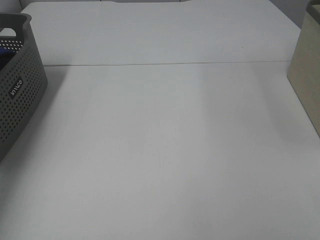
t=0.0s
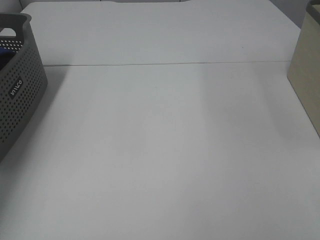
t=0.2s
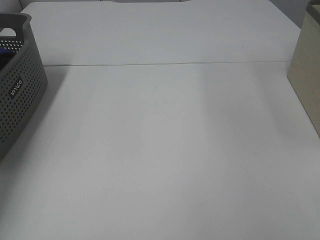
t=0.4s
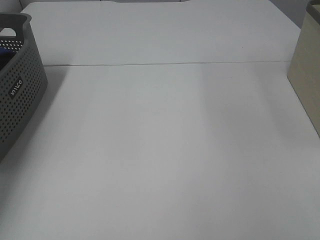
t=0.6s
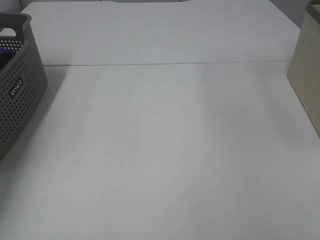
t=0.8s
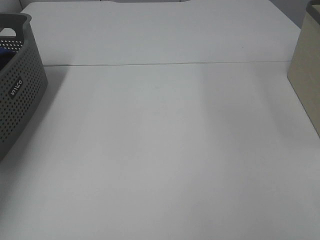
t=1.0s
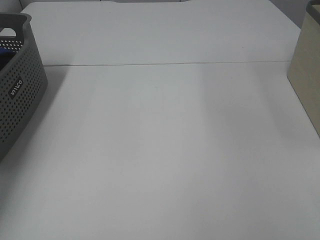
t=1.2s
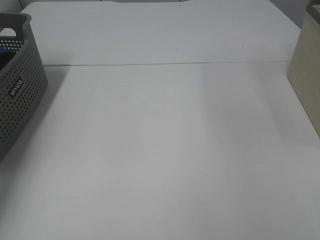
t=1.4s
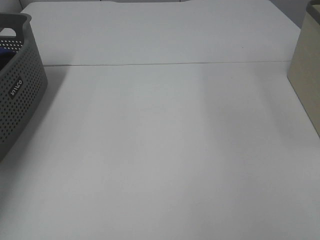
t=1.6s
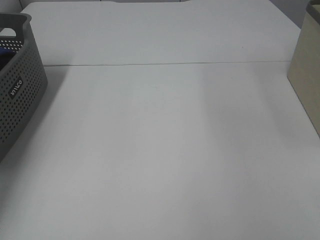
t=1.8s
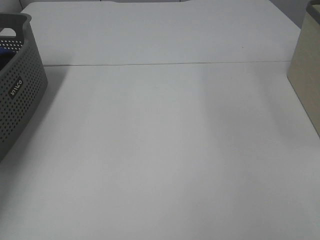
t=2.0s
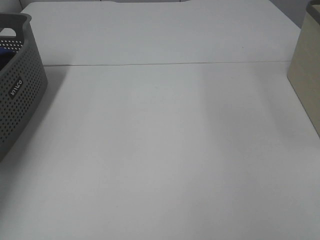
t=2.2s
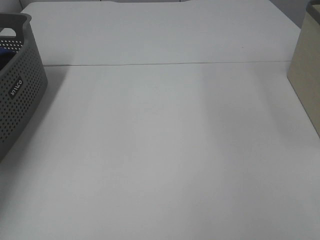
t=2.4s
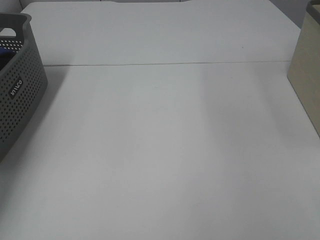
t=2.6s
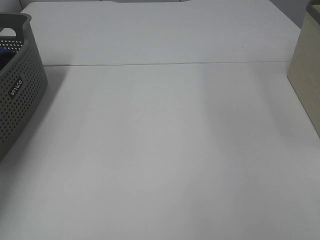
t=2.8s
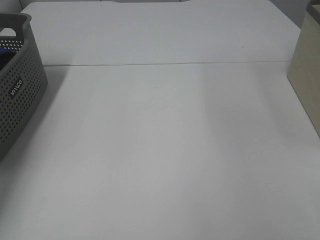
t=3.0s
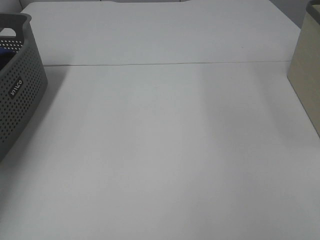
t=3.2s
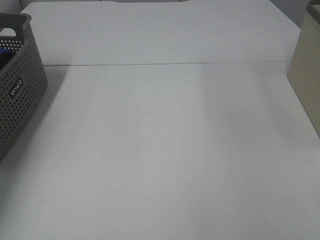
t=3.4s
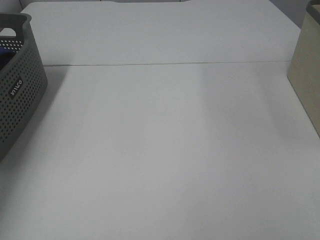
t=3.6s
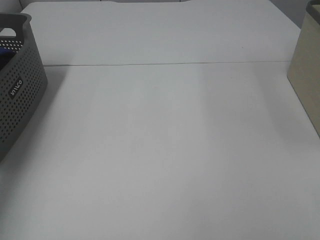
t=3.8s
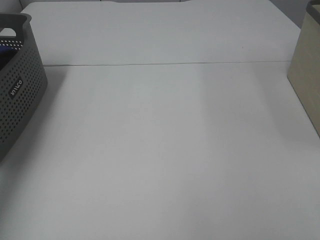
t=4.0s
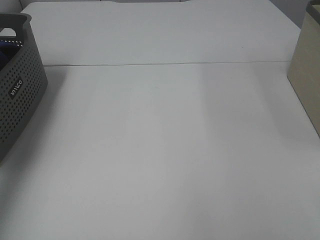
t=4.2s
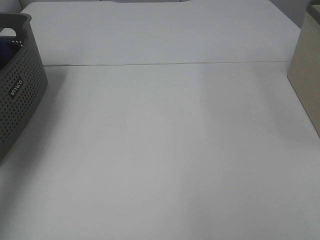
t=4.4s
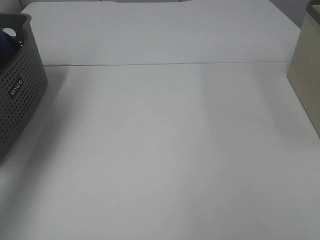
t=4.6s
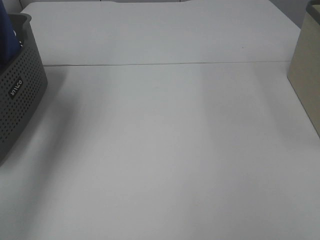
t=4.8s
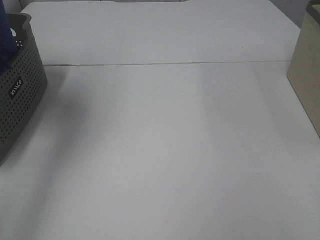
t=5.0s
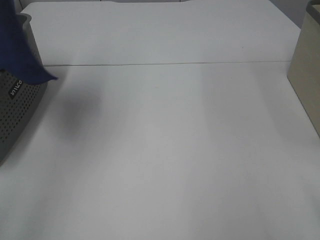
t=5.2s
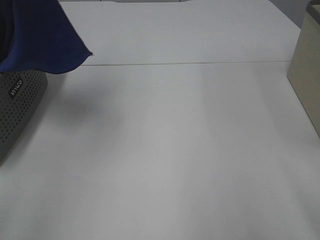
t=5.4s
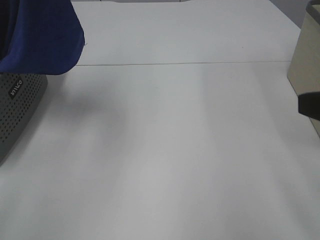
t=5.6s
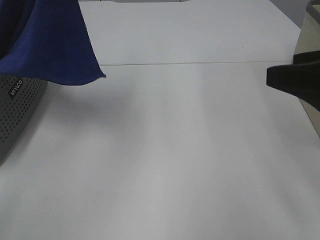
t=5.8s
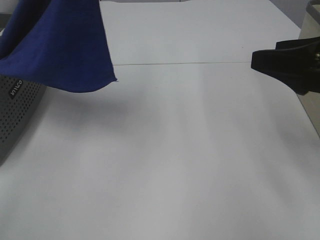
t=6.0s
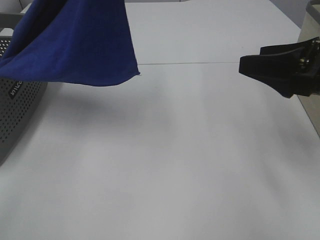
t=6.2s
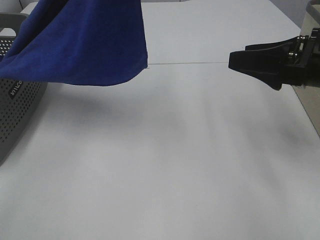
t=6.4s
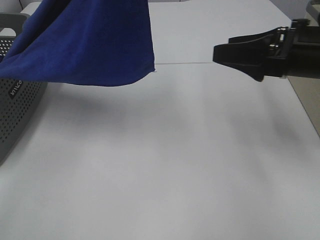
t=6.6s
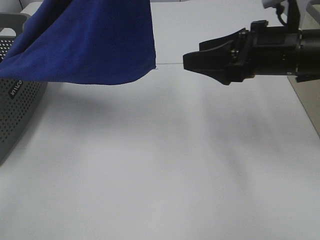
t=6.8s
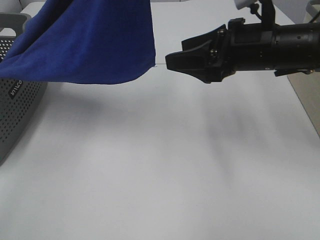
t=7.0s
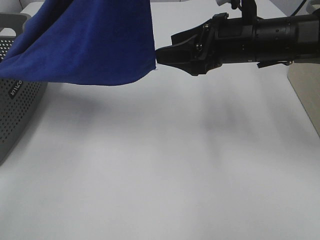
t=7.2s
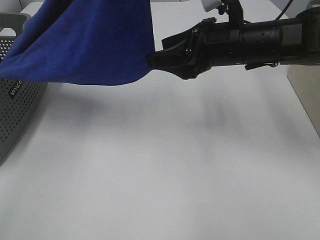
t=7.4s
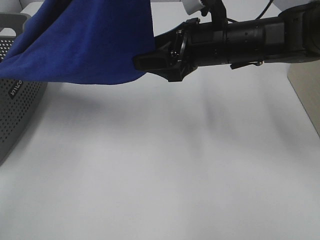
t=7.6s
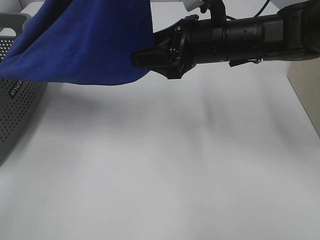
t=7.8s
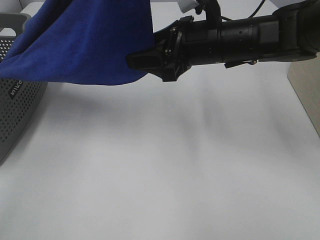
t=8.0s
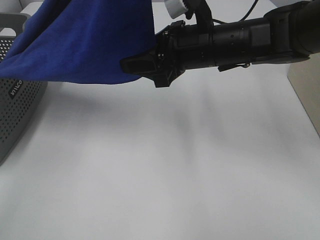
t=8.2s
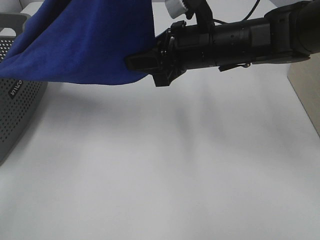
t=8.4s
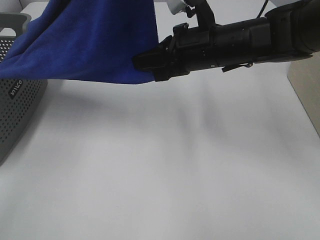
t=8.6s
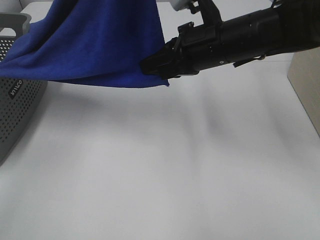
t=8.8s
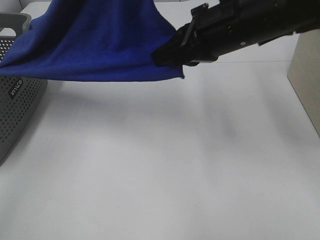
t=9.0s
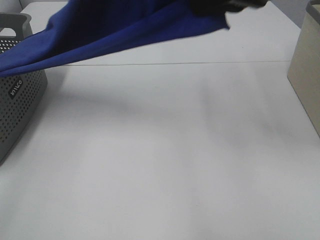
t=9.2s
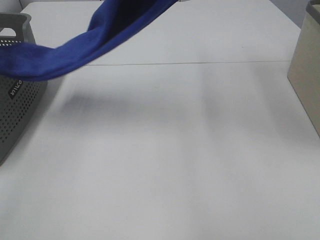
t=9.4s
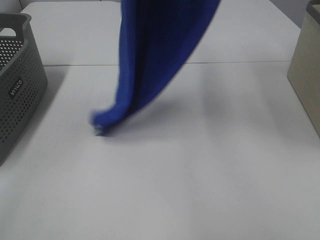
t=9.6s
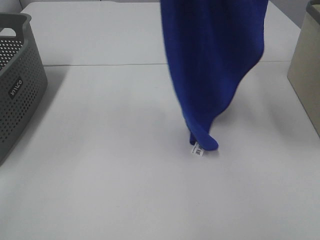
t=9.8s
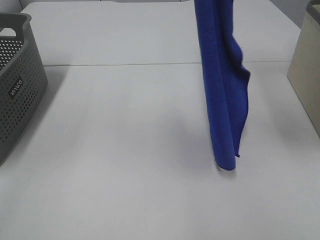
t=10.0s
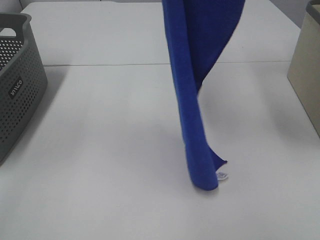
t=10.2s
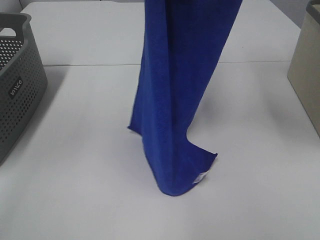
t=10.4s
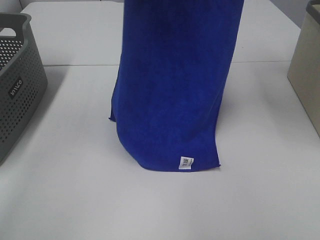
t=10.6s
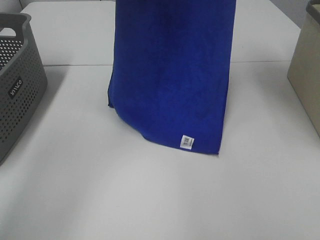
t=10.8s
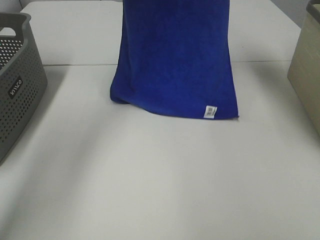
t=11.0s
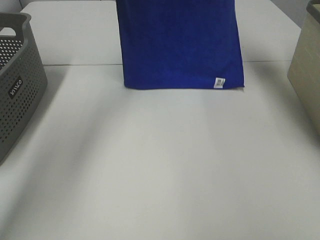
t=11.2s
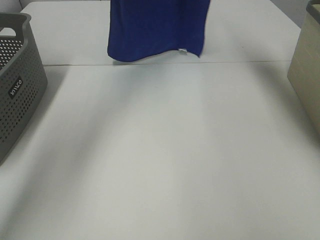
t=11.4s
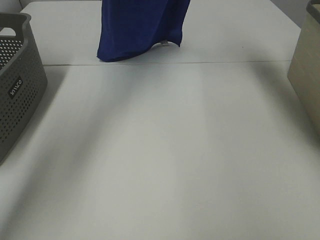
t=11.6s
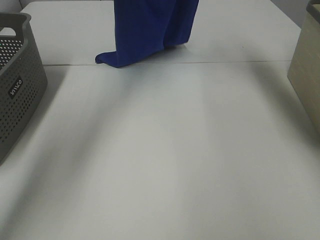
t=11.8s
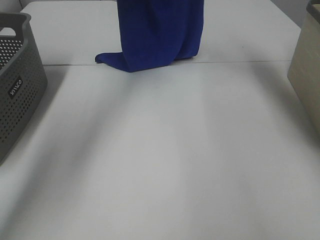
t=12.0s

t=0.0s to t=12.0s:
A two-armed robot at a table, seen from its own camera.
Task of the whole recording: Remove the towel and place it.
Step, t=4.2s to t=7.6s: Right hand: grab a corner of the blue towel and straighten it.
t=3.0s to t=4.4s: The left gripper travels upward by some 25 cm.
t=4.4s to t=6.0s: The right gripper is displaced forward by approximately 20 cm. Meanwhile the left gripper moves to the right, some 25 cm.
t=6.0s to t=7.6s: The right gripper heads to the left and forward, covering about 20 cm.
t=7.6s to t=9.0s: The right gripper heads upward, covering approximately 5 cm, and closes its fingers.
t=9.0s to t=10.4s: The right gripper goes some 20 cm upward and to the right.
t=10.4s to t=12.0s: The two grippers go roughly 25 cm forward and downward.

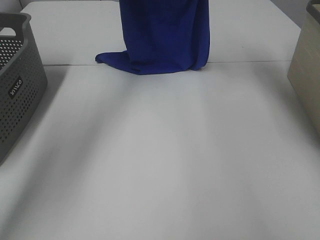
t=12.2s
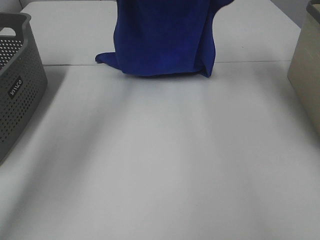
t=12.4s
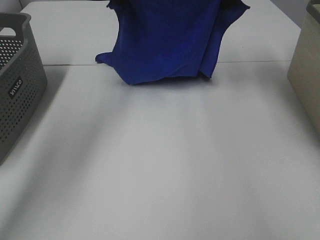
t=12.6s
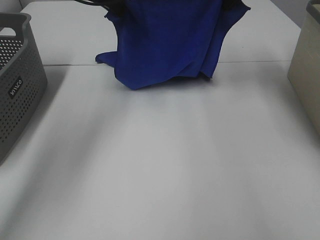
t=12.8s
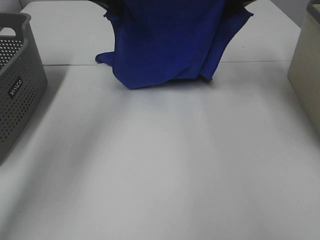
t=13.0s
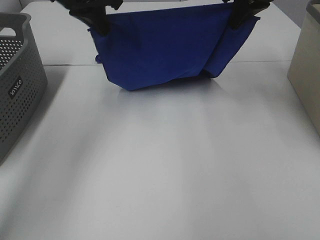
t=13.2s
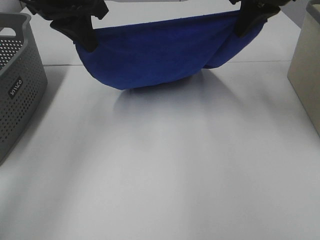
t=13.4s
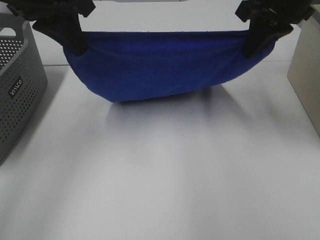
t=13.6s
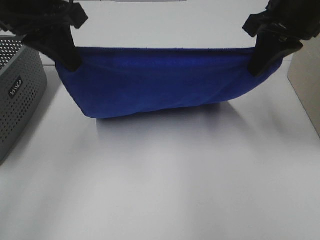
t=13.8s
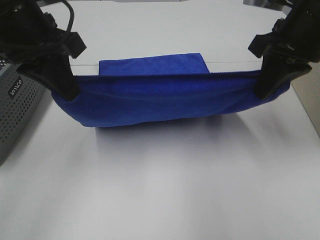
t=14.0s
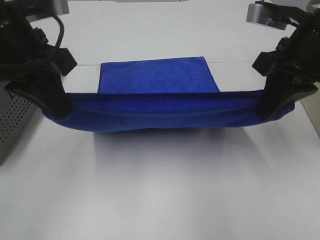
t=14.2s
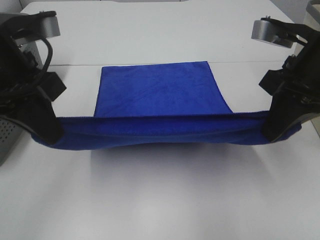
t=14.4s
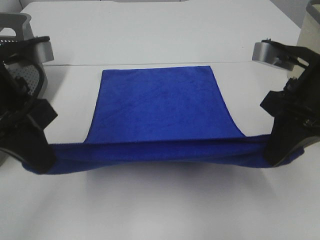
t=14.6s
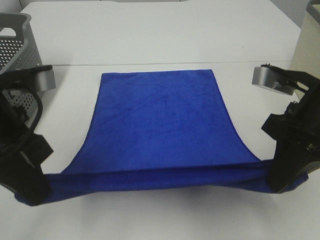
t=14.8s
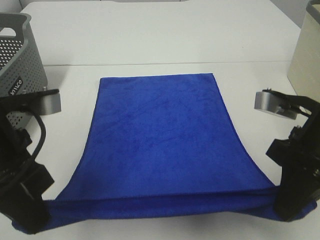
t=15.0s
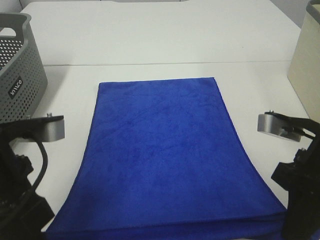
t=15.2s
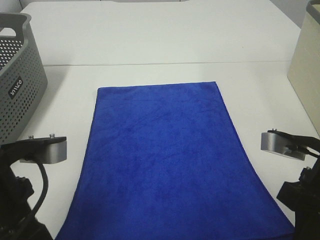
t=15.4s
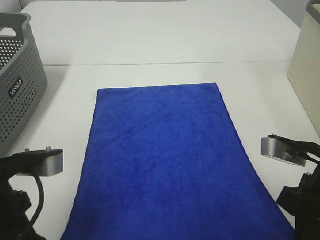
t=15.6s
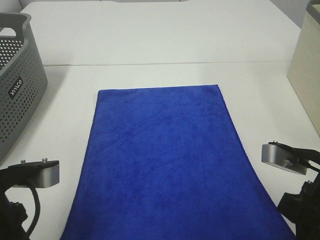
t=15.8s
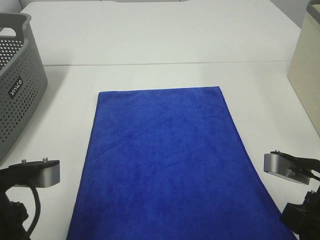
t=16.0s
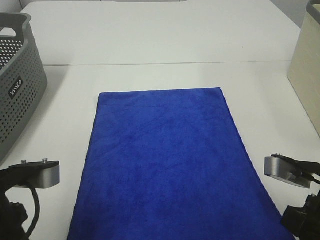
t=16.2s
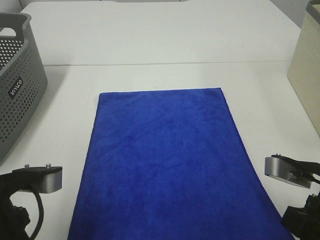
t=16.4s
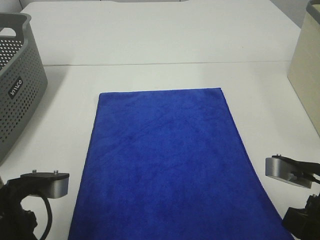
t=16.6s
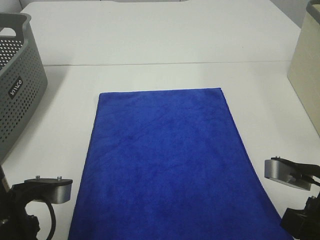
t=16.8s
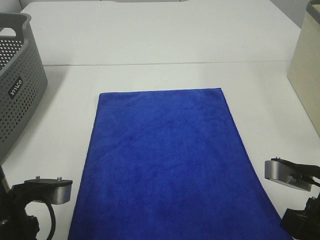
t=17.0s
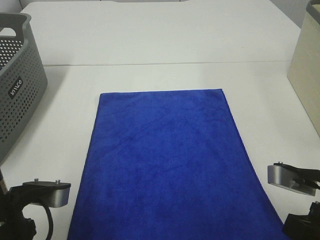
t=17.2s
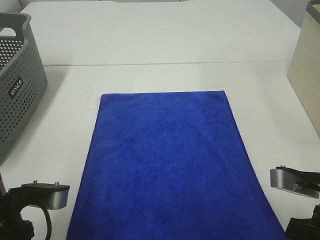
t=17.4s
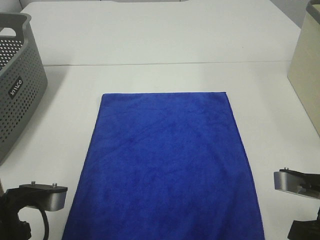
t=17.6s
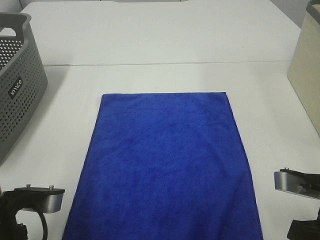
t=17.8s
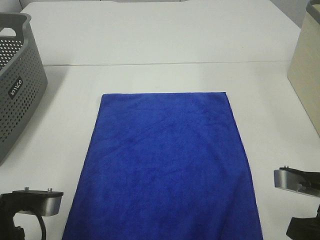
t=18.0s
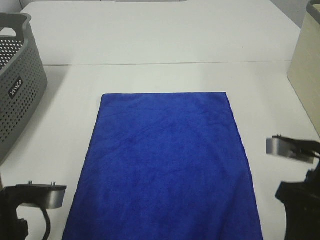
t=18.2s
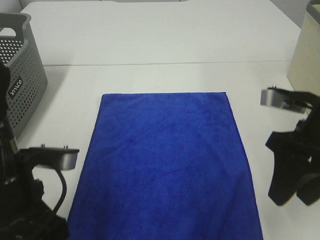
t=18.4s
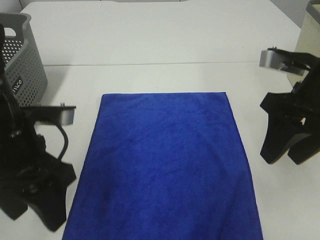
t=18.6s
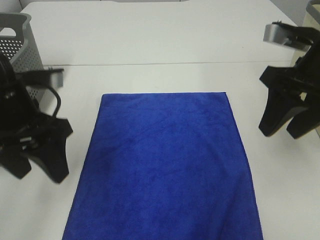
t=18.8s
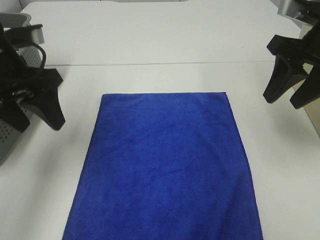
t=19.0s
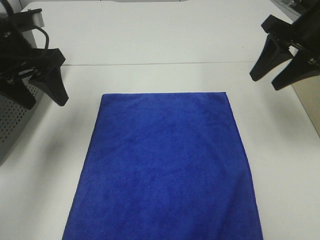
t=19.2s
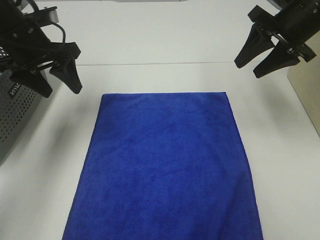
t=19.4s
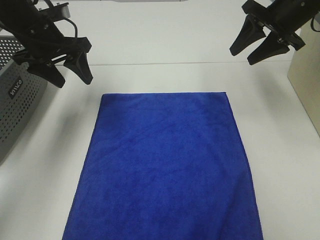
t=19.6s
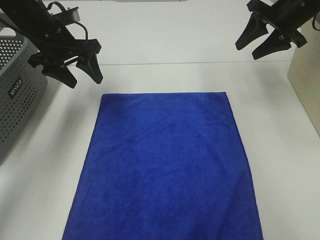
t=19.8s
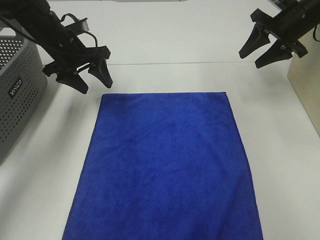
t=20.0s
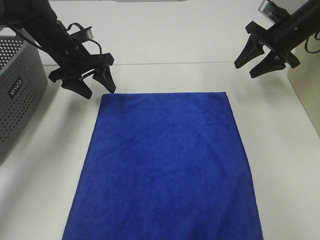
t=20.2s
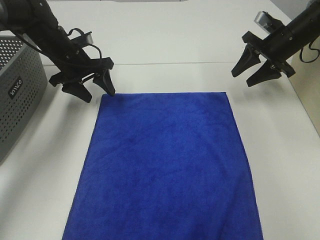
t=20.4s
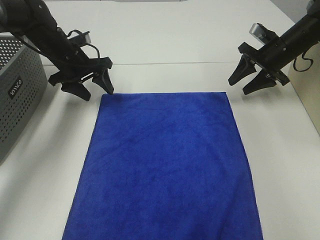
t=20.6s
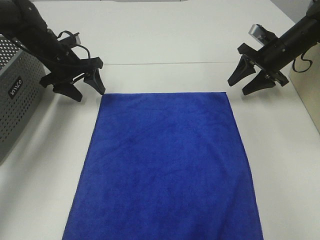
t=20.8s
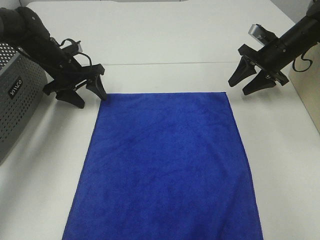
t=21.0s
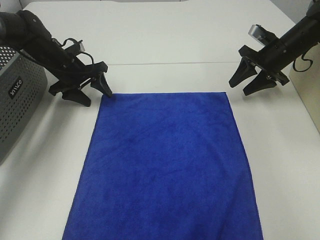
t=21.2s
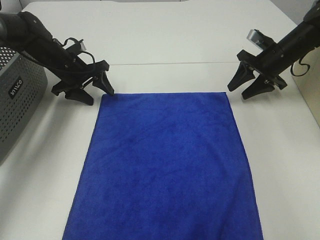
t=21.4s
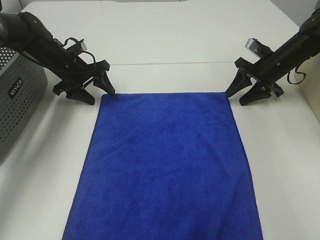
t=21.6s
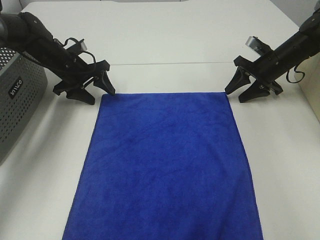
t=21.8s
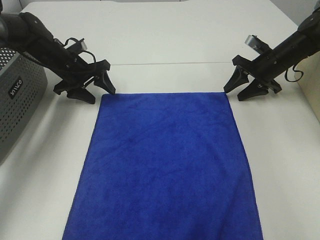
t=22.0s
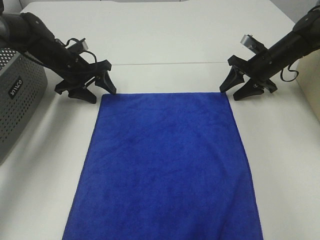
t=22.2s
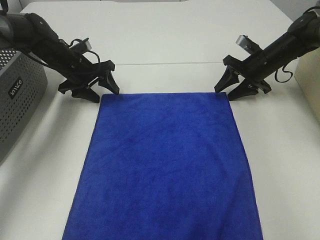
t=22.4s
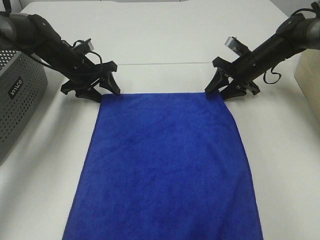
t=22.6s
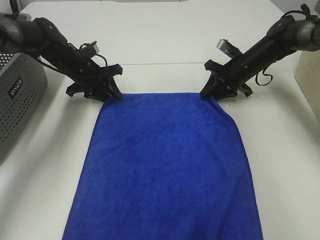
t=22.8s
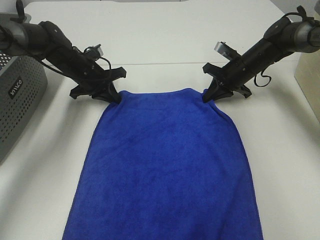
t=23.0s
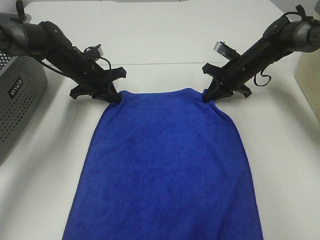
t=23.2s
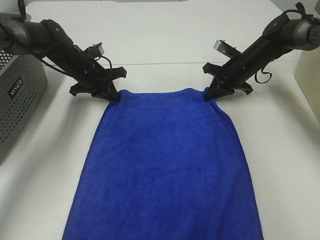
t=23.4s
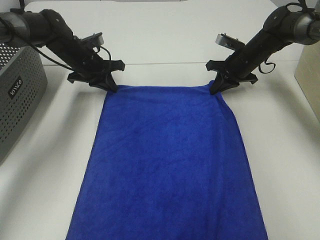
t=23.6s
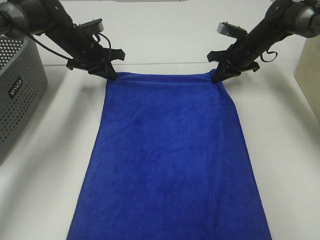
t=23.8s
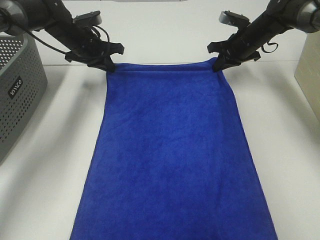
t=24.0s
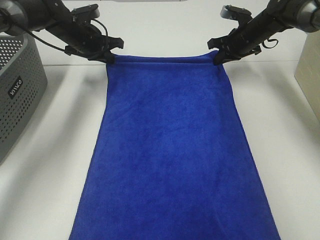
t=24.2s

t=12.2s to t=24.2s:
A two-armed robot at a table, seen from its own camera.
Task of the whole recording: Remove the towel and place it.
Step, t=13.4s to t=19.8s: Right hand:adjust the blue towel.
Step, t=13.4s to t=20.4s: Left hand:adjust the blue towel.
t=12.2s to t=13.8s: The two grippers go about 20 cm backward.
t=13.8s to t=15.2s: Both grippers travel together backward and downward, approximately 20 cm.
t=15.2s to t=16.6s: The left gripper goes about 5 cm downward. Meanwhile the right gripper ends up roughly 5 cm from where it was.
t=16.6s to t=18.2s: The left gripper opens up; the right gripper opens its fingers.
t=18.2s to t=19.8s: The grippers both shift forward by about 30 cm.
t=19.8s to t=21.2s: Both grippers travel together downward, approximately 10 cm.
t=21.2s to t=22.6s: The right gripper moves to the left, approximately 5 cm.
t=22.6s to t=24.2s: The left gripper goes roughly 5 cm upward, and closes its fingers, while the right gripper shifts about 10 cm forward and upward, and closes up.
